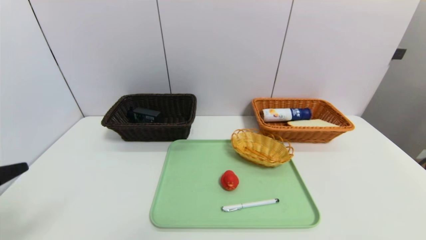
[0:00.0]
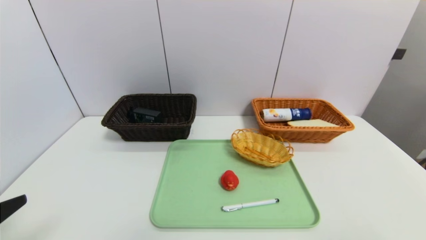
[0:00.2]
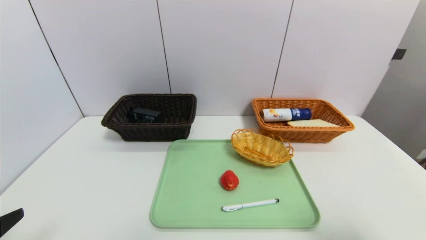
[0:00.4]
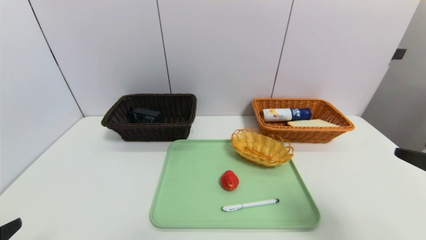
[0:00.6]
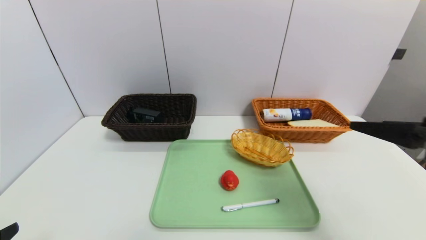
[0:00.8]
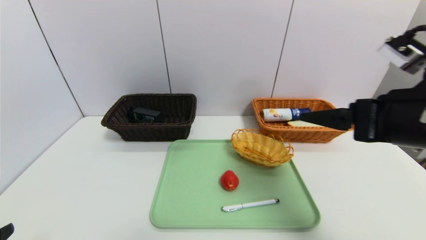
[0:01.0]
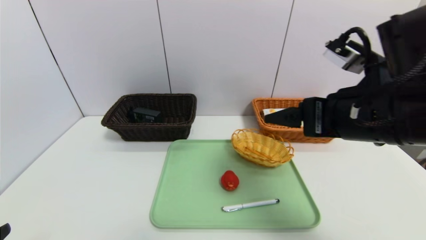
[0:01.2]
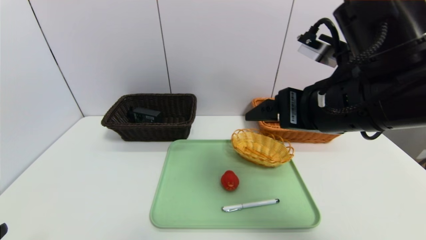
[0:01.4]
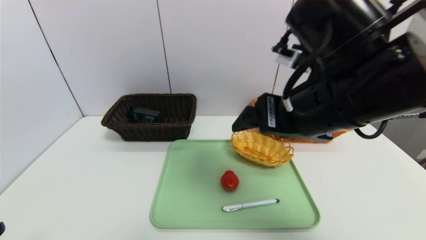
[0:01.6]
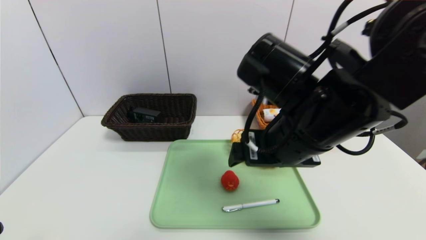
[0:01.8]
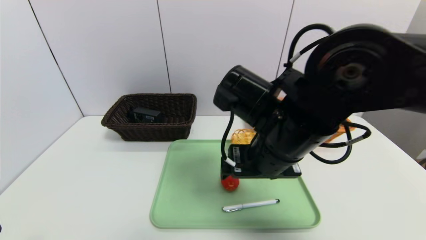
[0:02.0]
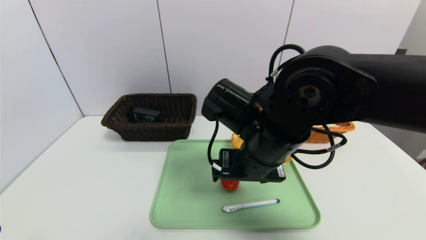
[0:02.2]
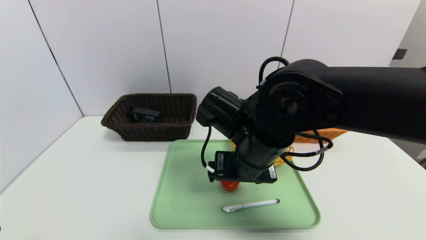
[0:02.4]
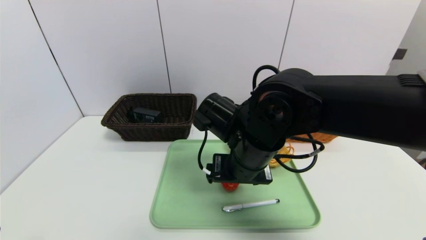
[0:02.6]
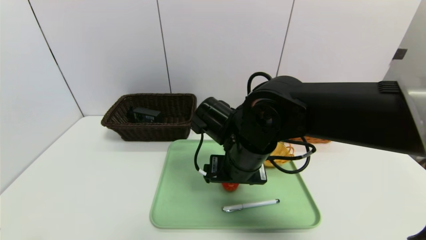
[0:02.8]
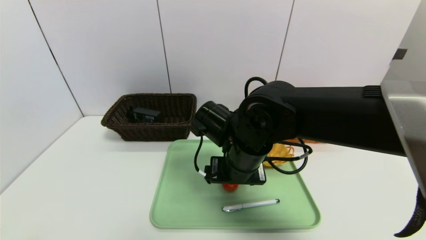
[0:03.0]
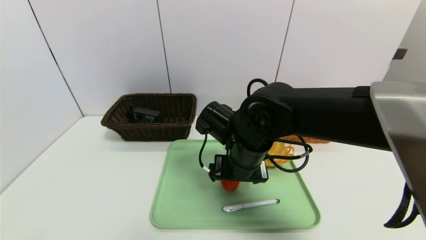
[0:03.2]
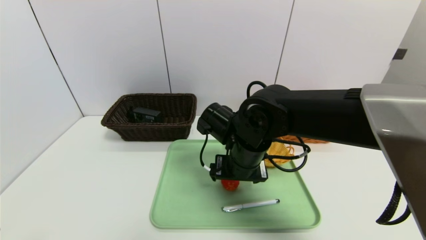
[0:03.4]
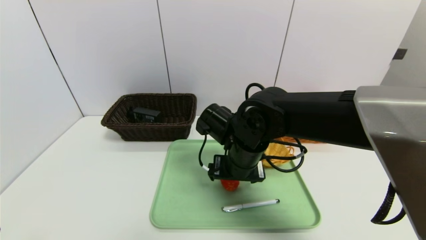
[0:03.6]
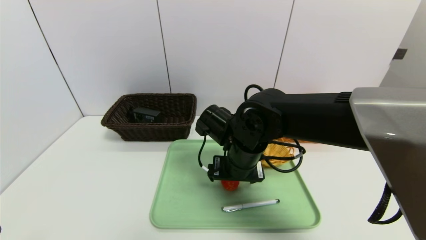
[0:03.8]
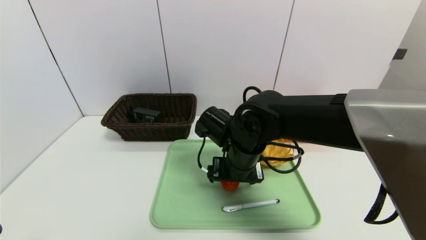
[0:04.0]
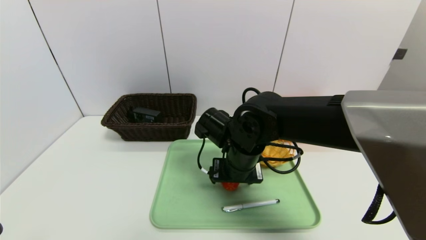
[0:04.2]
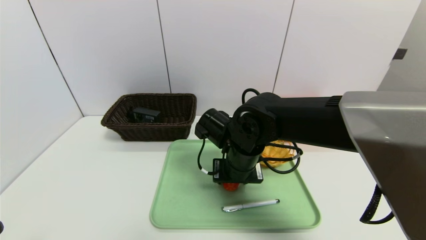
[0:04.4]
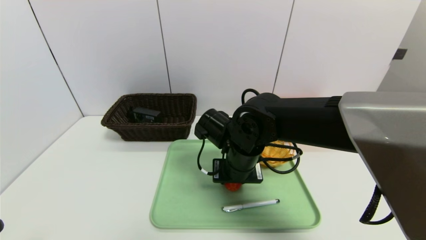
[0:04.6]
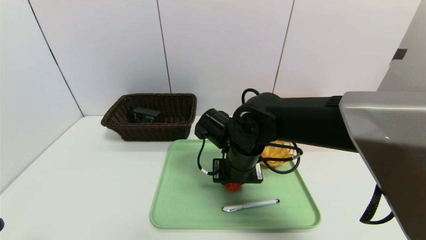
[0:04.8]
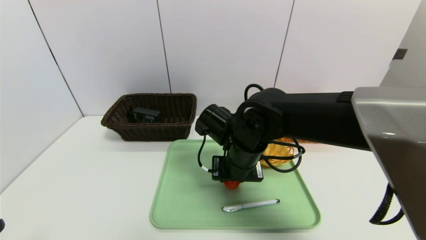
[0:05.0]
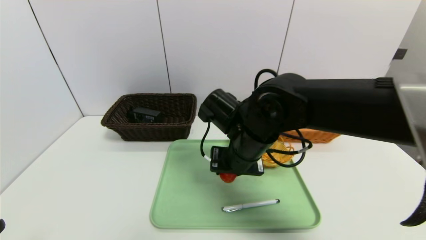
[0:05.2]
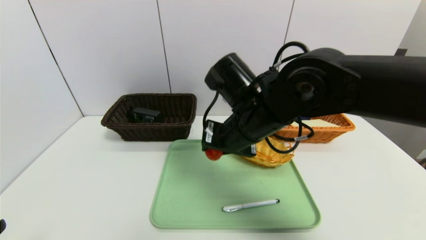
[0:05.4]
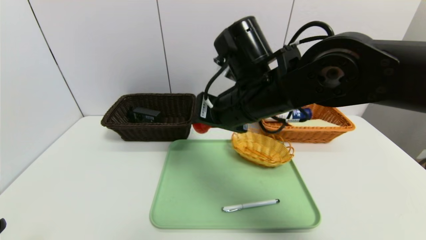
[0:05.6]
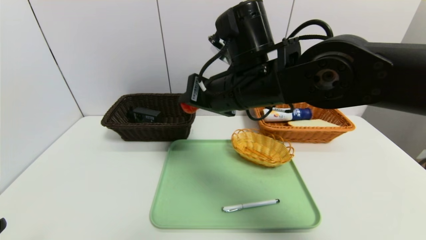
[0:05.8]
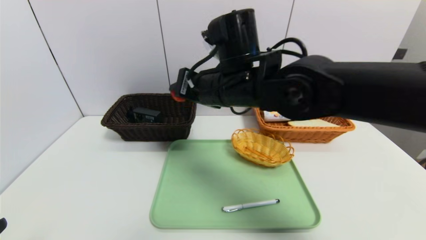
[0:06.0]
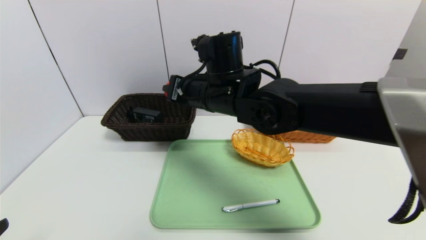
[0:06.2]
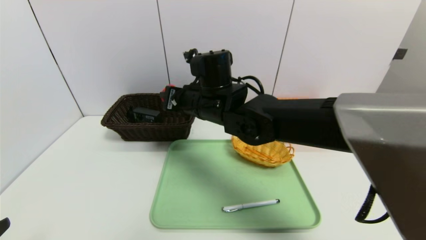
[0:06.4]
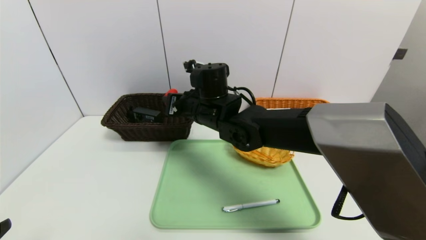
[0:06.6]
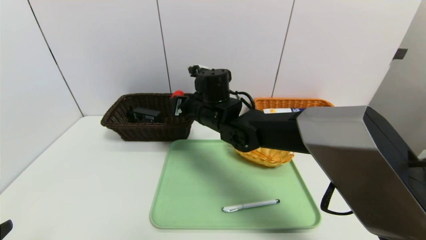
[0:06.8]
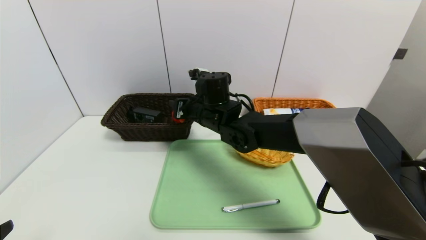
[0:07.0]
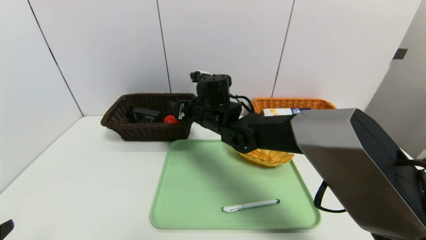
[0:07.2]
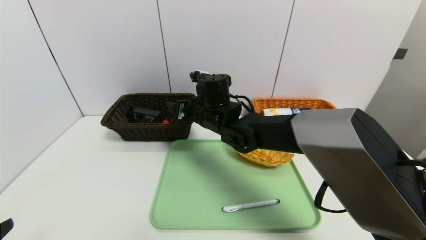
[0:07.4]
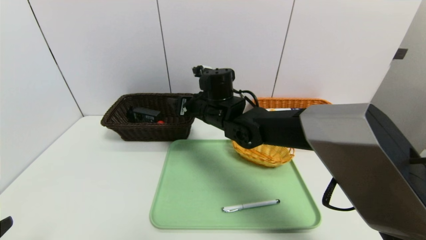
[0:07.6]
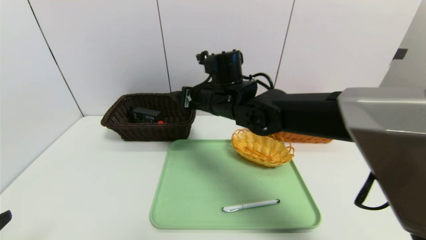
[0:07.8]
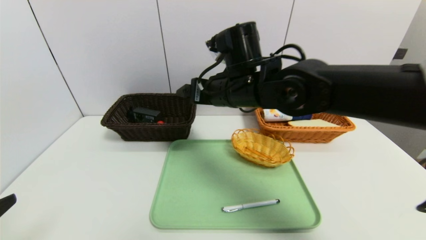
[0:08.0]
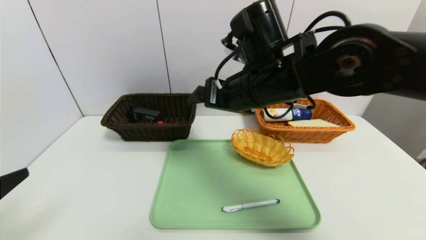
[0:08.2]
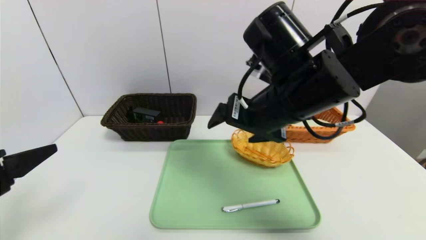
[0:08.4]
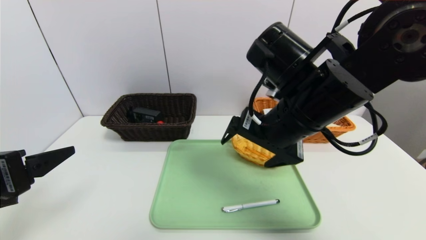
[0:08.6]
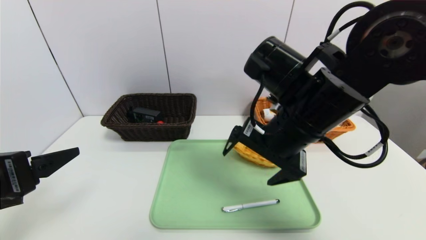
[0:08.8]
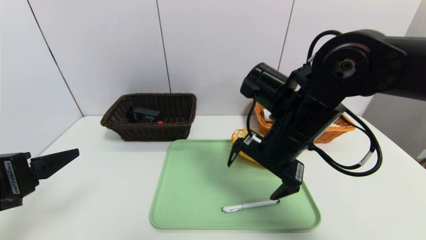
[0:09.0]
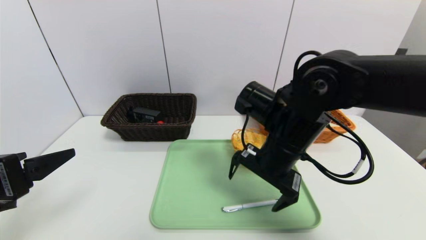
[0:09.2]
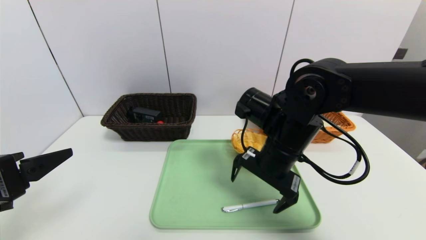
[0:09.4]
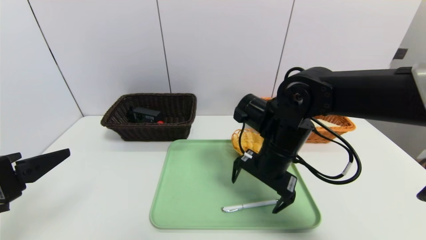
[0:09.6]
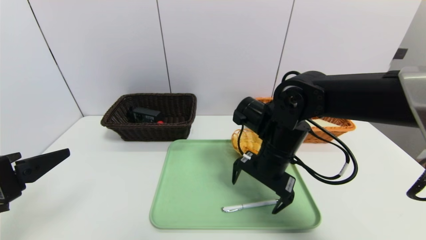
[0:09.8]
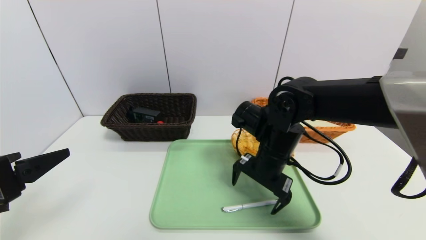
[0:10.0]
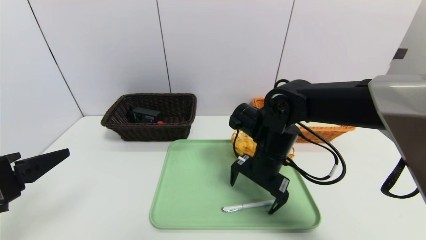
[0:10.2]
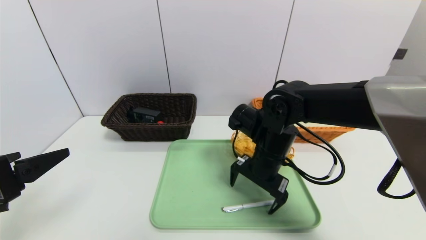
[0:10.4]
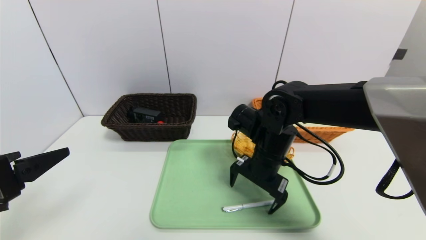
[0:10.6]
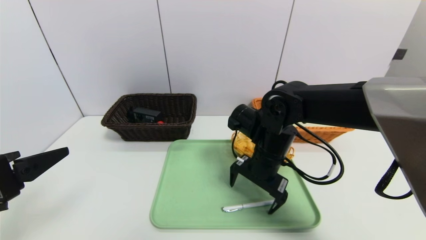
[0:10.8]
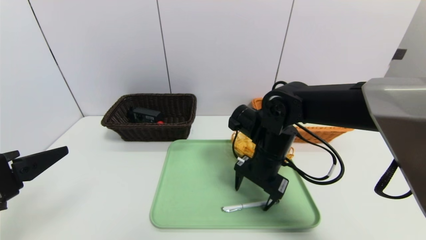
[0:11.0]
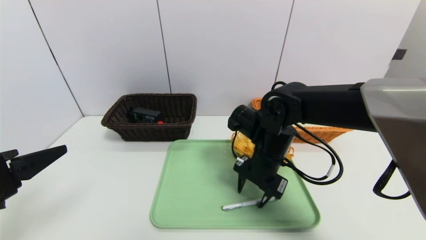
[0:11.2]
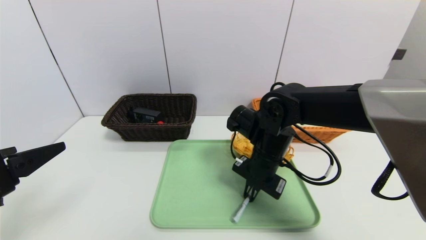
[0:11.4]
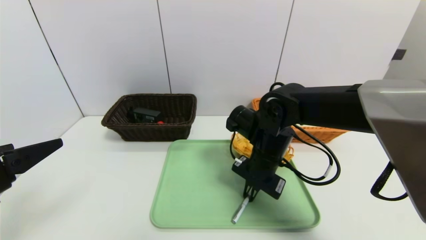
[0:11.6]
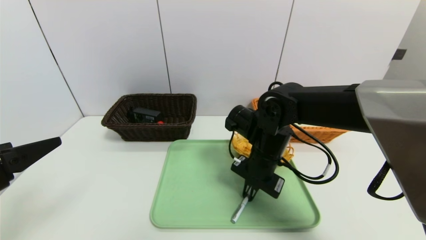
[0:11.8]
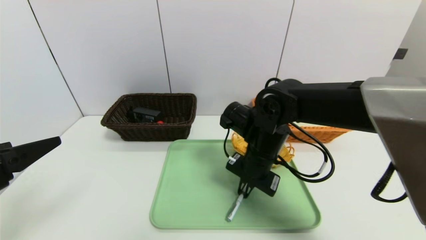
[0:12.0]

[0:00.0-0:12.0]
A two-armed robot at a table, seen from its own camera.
Task of the whole recording: place the food in the right basket with the right gripper, and place the non food items in the left basket with the left gripper.
0:00.0 to 0:01.6: The left gripper goes about 10 cm downward and backward, while the right gripper heads to the left, forward and upward, covering about 30 cm.
0:01.6 to 0:03.0: The right gripper moves downward, to the left and forward, about 15 cm.
0:03.0 to 0:04.4: The right gripper closes its fingers.
0:04.4 to 0:06.0: The right gripper moves upward, about 15 cm.
0:06.0 to 0:07.6: The right gripper heads downward and forward, covering roughly 10 cm, and opens up.
0:07.6 to 0:09.0: The left gripper goes roughly 10 cm forward. Meanwhile the right gripper shifts approximately 15 cm backward and to the right.
0:09.0 to 0:10.4: The right gripper moves downward, some 10 cm.
0:10.4 to 0:12.0: The right gripper closes its fingers.

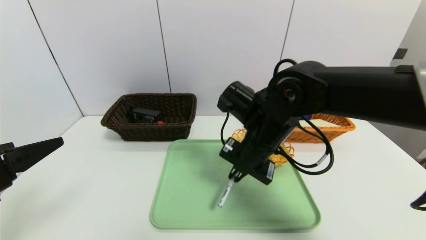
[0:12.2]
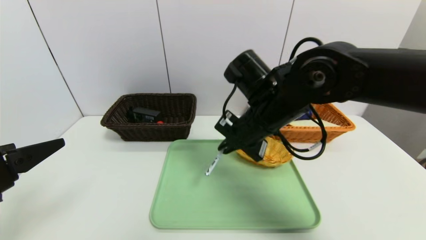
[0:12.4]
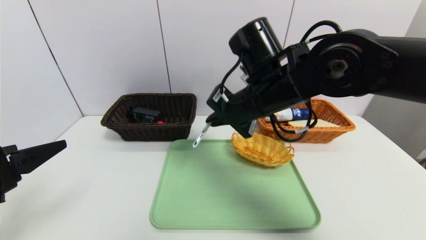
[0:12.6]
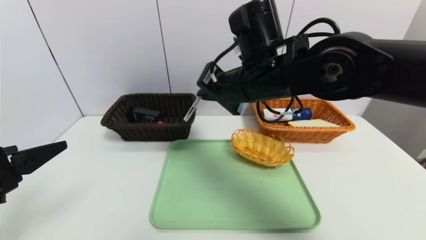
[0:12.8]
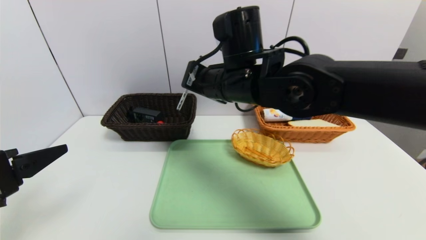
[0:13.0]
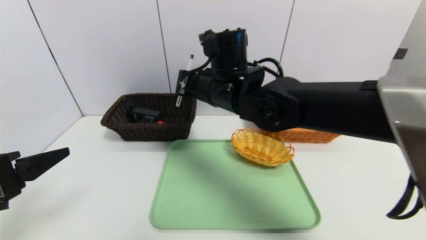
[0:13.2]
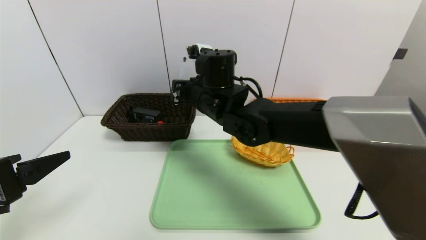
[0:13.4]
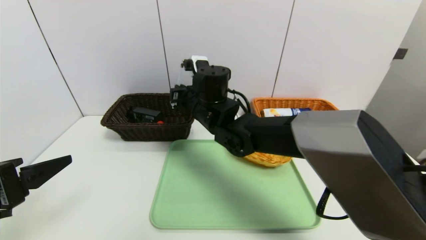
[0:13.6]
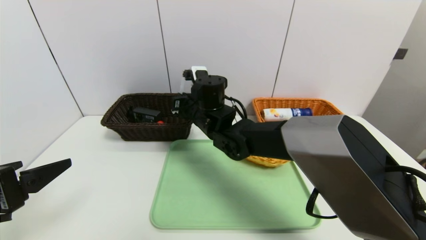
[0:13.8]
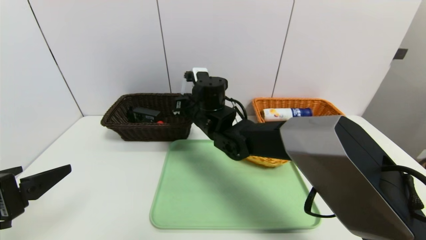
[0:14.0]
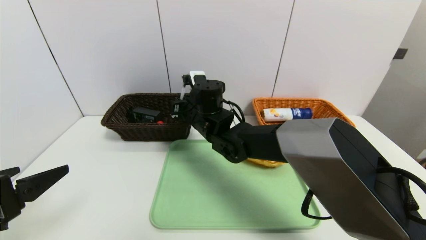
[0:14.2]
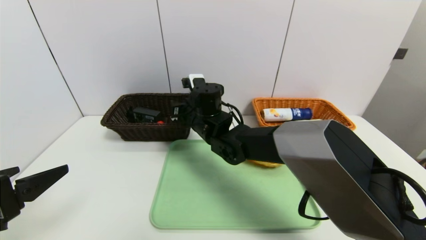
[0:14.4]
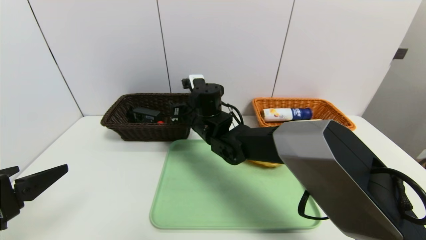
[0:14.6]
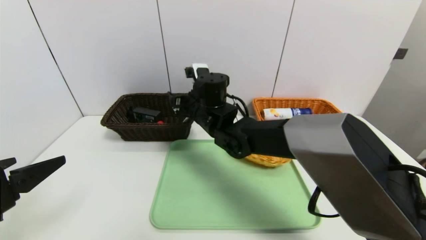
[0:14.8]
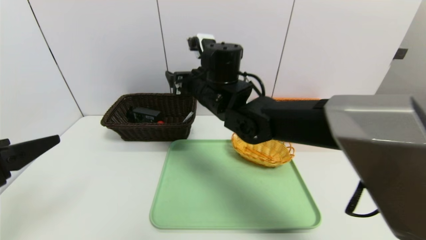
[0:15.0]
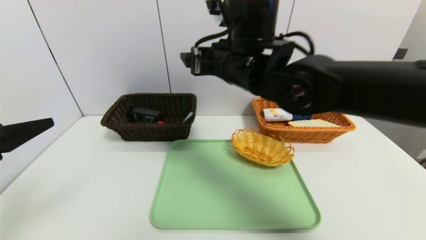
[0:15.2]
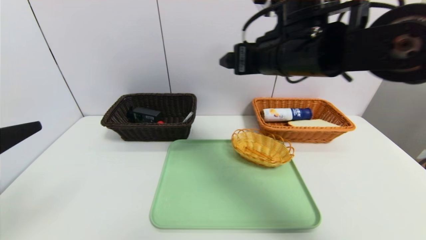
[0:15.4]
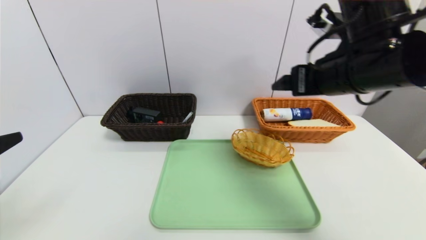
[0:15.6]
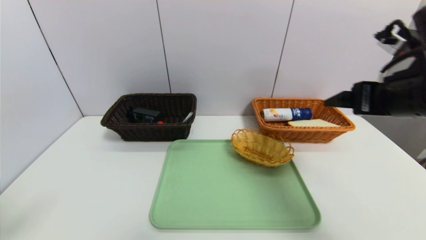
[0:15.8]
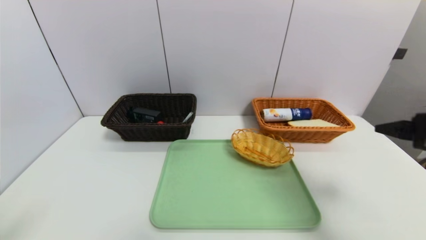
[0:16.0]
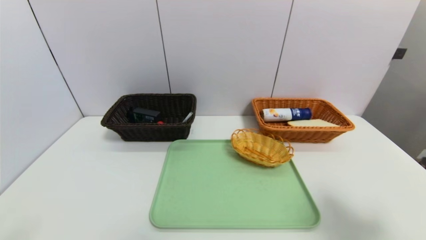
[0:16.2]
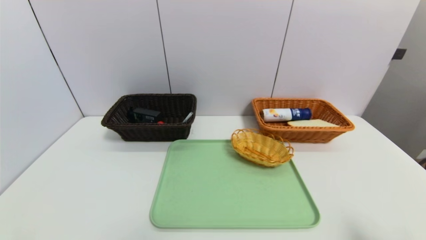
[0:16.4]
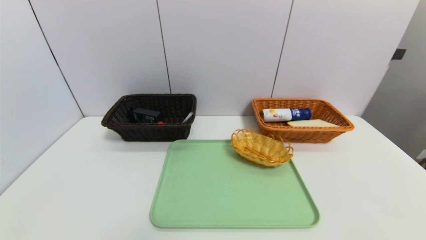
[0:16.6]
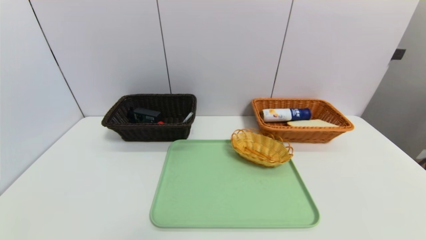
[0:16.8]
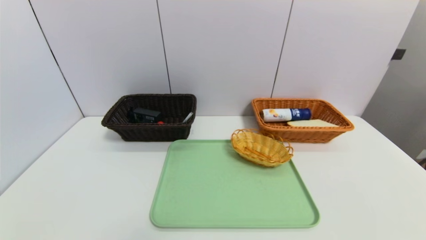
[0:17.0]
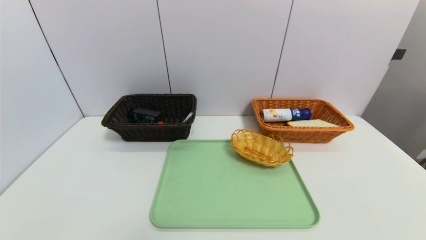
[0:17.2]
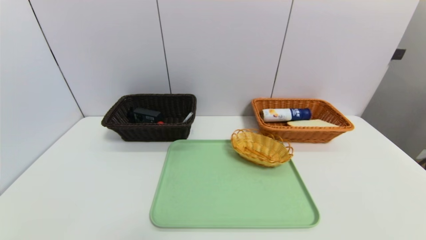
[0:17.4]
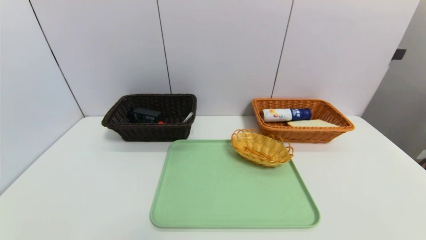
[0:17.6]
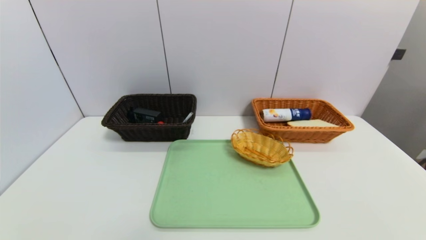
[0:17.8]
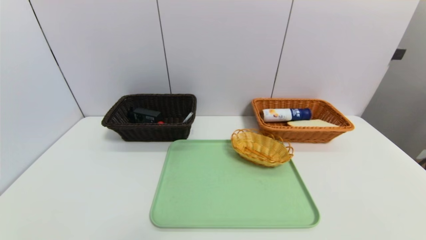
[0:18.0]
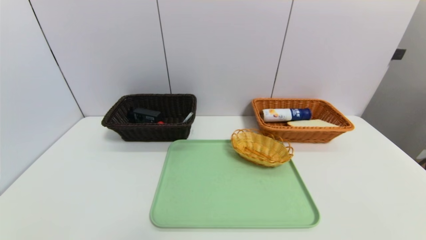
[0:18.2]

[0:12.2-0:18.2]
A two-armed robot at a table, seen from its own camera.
Task of the whole recording: place the food in the right basket with the right gripper, and place the non food items in the left basket with the left gripper.
0:12.2 to 0:13.8: The right gripper moves to the left and forward, approximately 15 cm, and goes upward and returns, some 10 cm each way.
0:13.8 to 0:15.2: The left gripper is displaced upward by some 5 cm. The right gripper is displaced upward, to the right and backward by approximately 15 cm, and opens.
0:15.2 to 0:16.6: The right gripper heads backward, to the right and downward, covering some 50 cm, while the left gripper moves backward and downward, about 20 cm.
